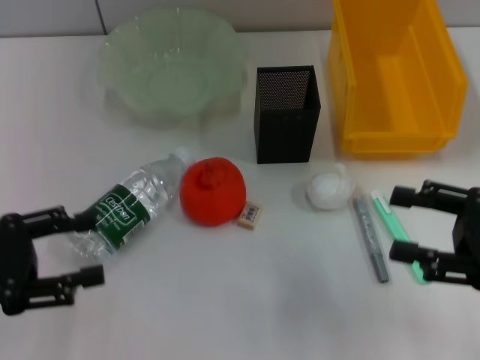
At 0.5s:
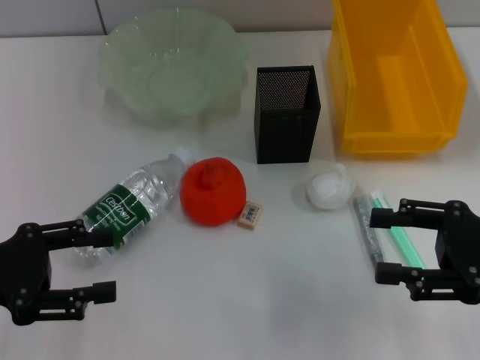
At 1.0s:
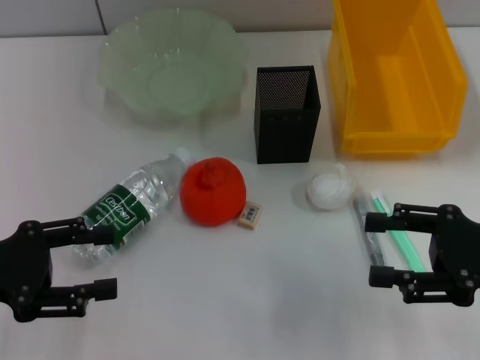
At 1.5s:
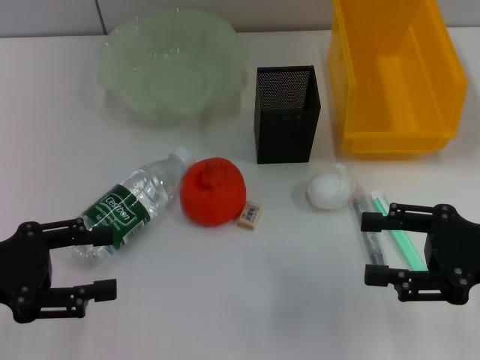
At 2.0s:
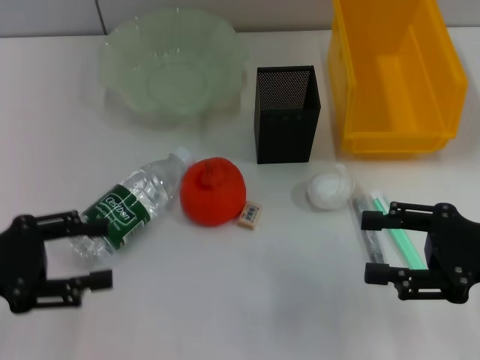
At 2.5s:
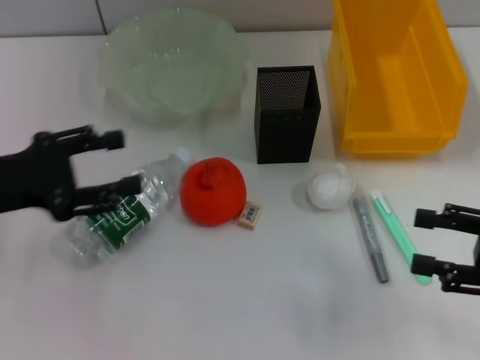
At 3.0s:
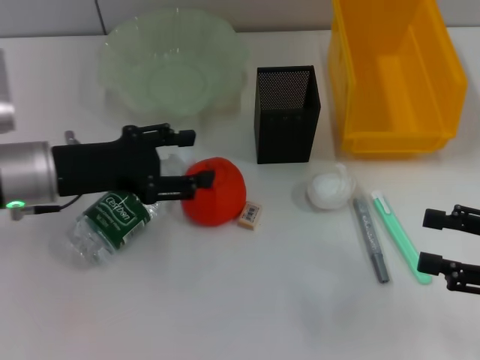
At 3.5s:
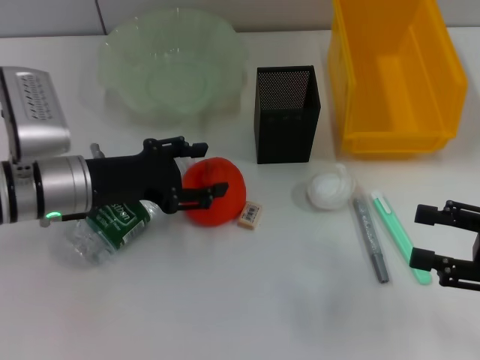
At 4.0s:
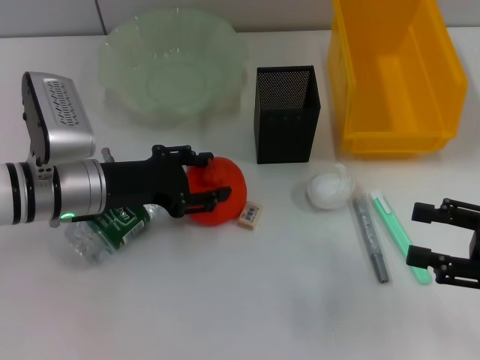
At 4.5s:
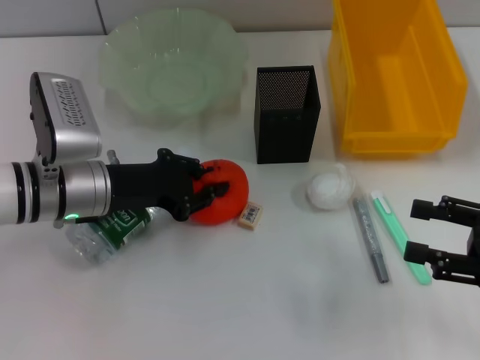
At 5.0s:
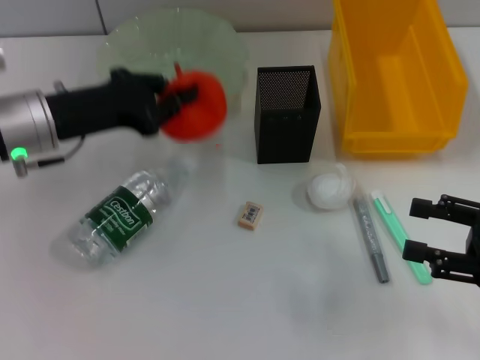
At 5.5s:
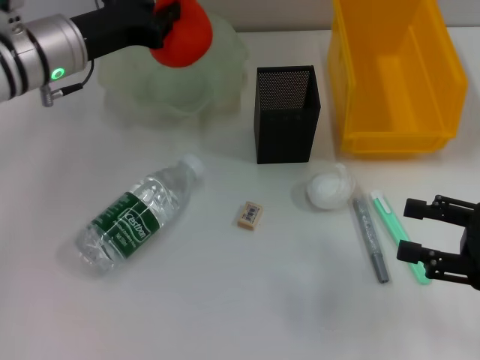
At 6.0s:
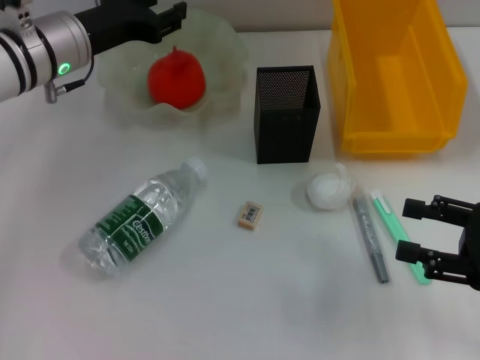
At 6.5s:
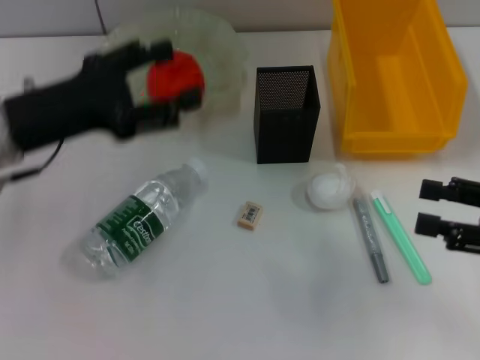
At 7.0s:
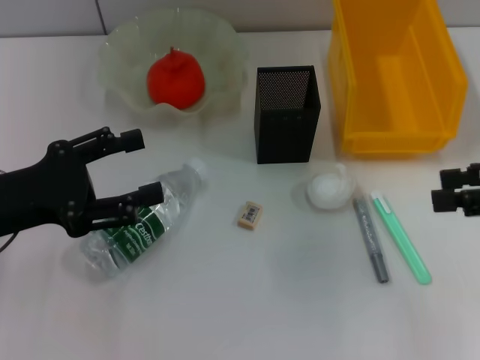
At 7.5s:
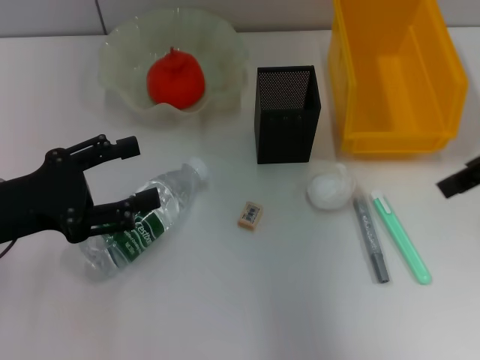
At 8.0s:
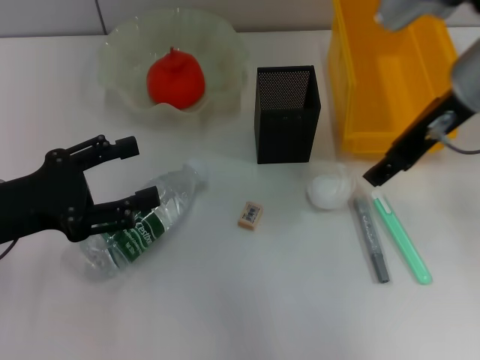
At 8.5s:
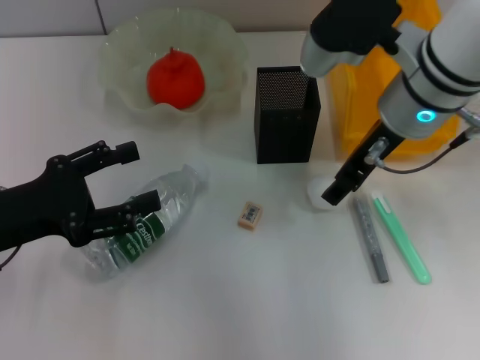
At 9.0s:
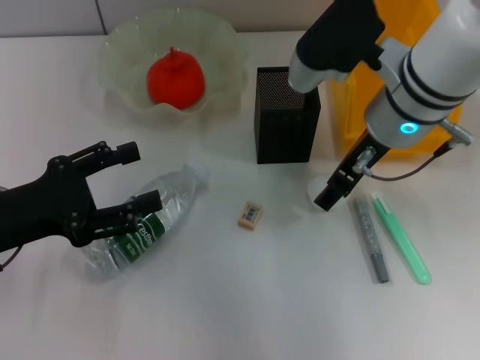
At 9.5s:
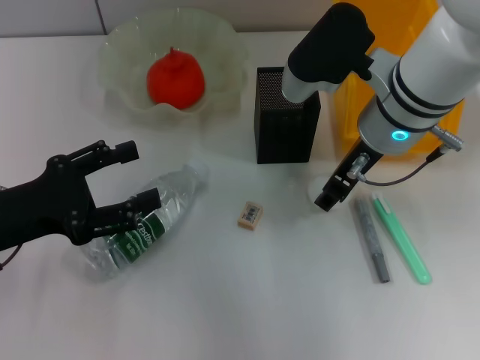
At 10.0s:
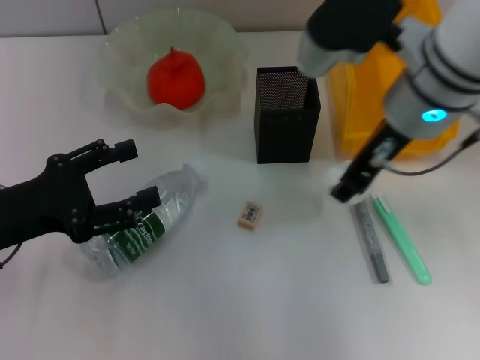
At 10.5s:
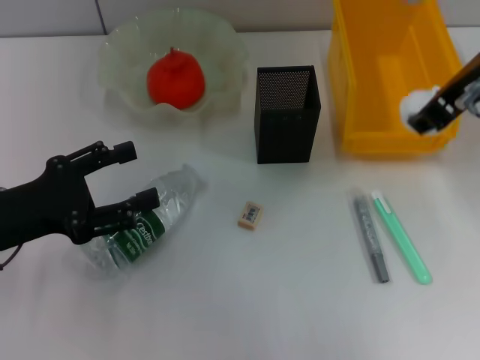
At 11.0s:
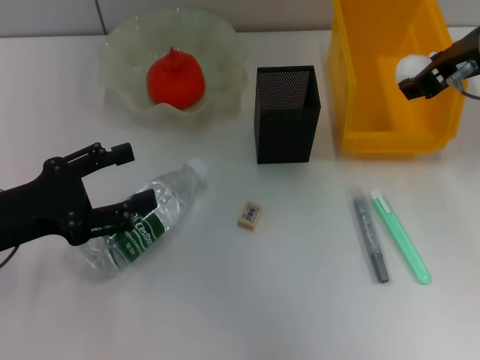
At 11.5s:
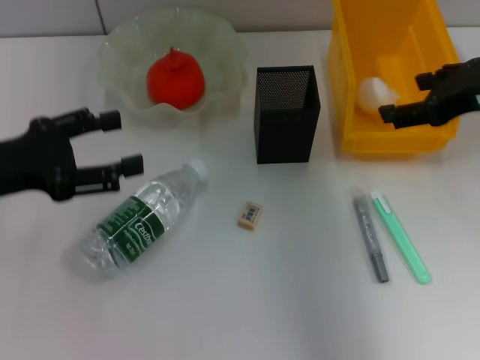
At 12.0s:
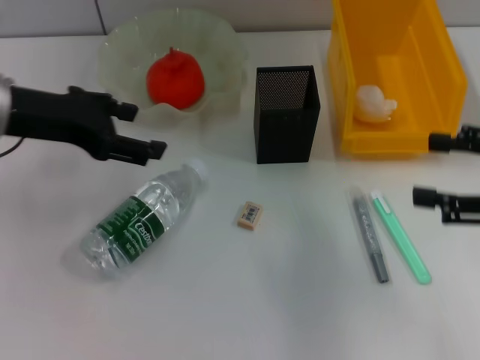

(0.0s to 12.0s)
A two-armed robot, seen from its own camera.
Step, 0.0s - 4.0s: Grab the orange with the left hand.
Step, 4.5s - 6.0s: Place the orange into the fruit bowl with the left hand.
Step, 6.5s - 9.5s: Grab the paper ball with the right hand.
Step, 10.0s - 11.0s: Place the paper ball into the trash can with the right hand.
0.0s - 2.0s: The grippers move only a little.
2.0s - 4.0s: The left gripper travels to the right and forward by some 15 cm.
4.0s - 6.0s: The left gripper travels forward and upward by about 10 cm, and closes its fingers.
6.0s - 8.0s: The left gripper travels backward and to the left by some 20 cm, and opens its fingers. Meanwhile the right gripper heads to the left, upward and forward, covering about 25 cm.
10.0s - 12.0s: The right gripper heads to the right and backward, covering approximately 20 cm, and opens up; the left gripper shifts about 15 cm upward and forward.

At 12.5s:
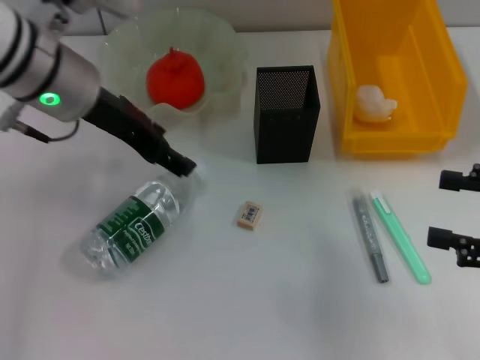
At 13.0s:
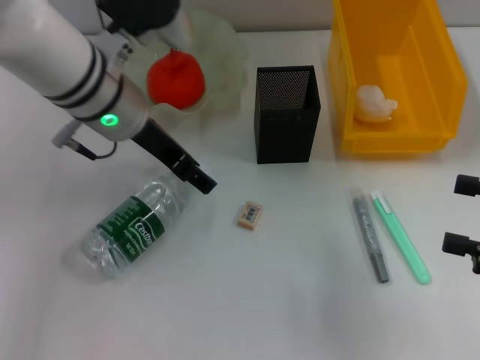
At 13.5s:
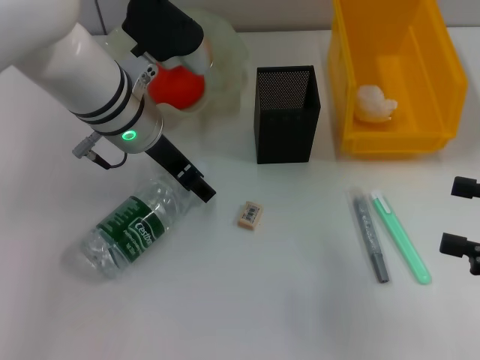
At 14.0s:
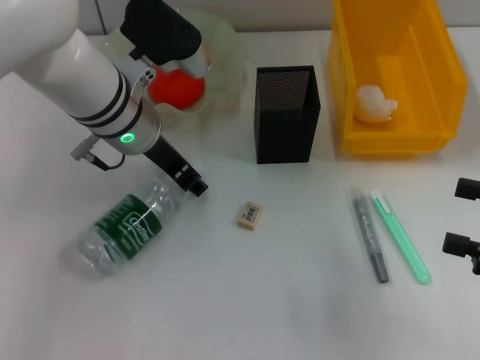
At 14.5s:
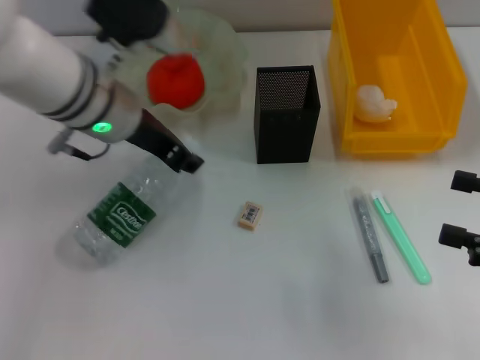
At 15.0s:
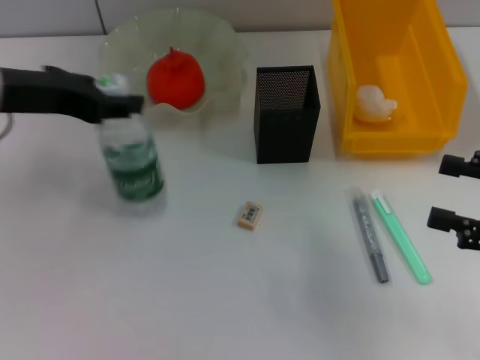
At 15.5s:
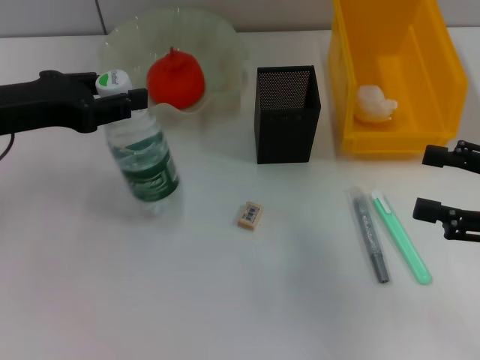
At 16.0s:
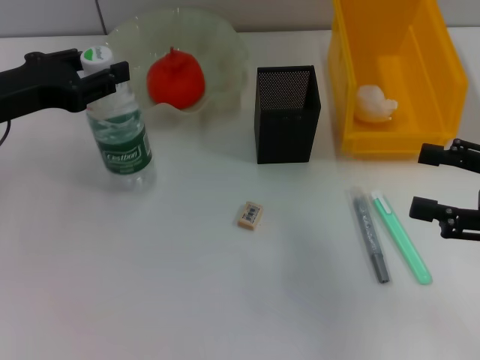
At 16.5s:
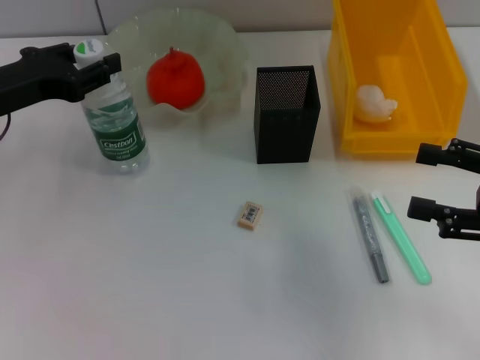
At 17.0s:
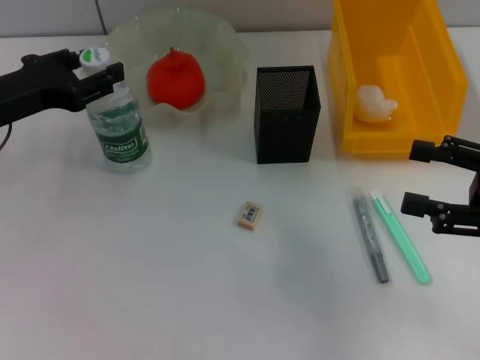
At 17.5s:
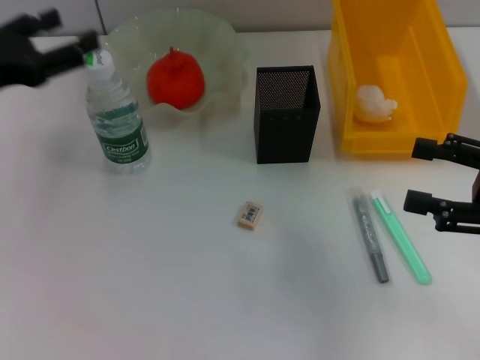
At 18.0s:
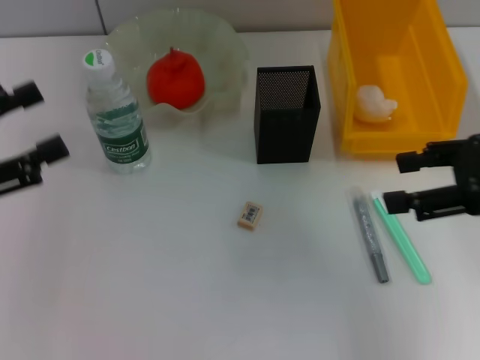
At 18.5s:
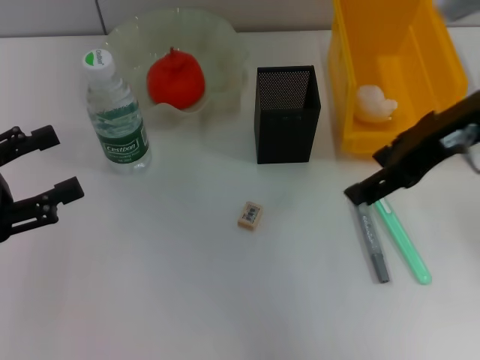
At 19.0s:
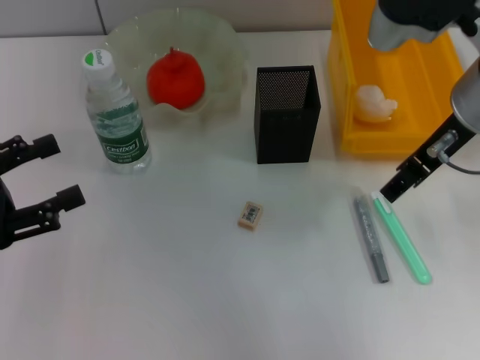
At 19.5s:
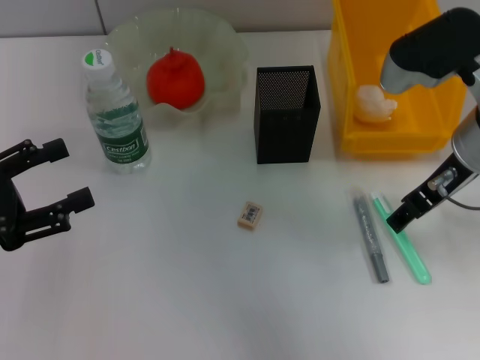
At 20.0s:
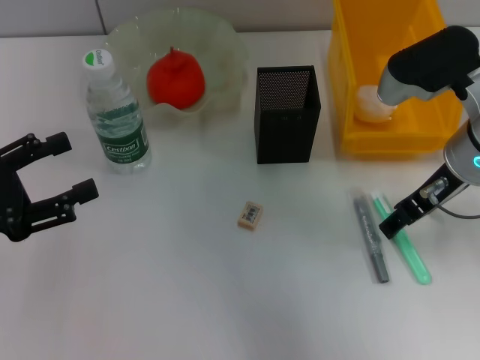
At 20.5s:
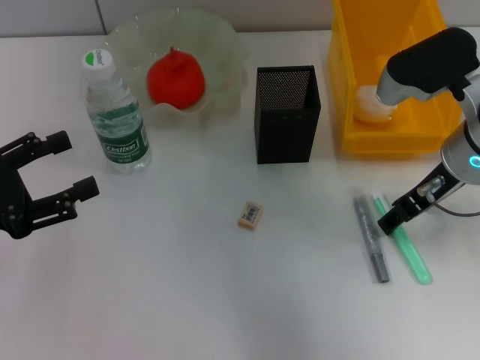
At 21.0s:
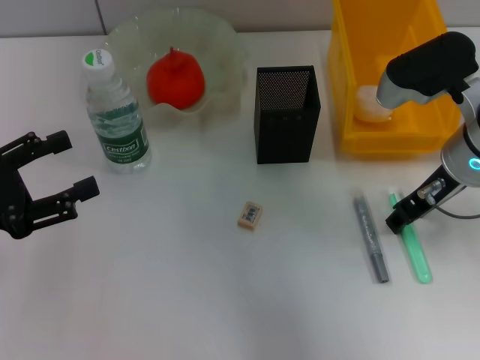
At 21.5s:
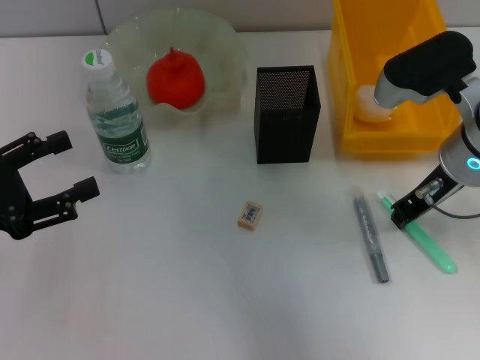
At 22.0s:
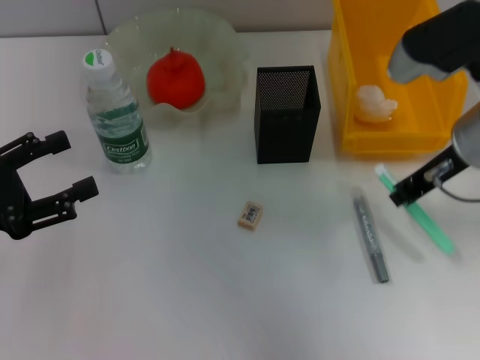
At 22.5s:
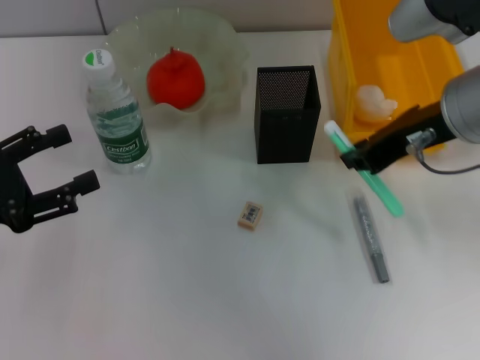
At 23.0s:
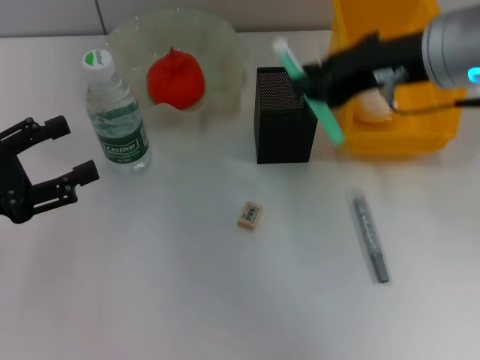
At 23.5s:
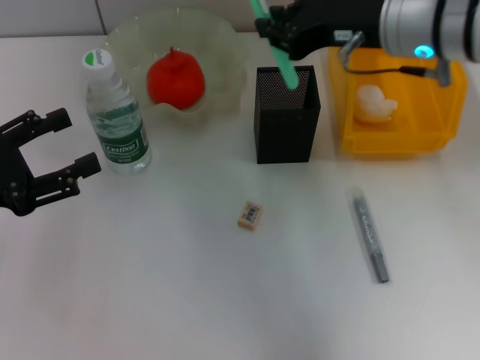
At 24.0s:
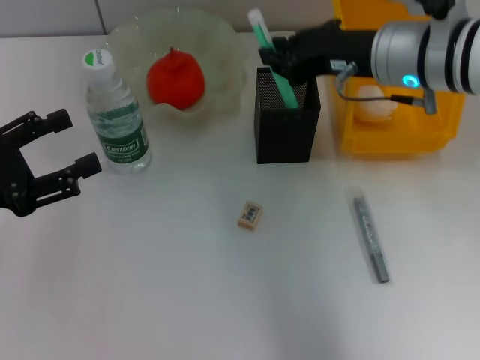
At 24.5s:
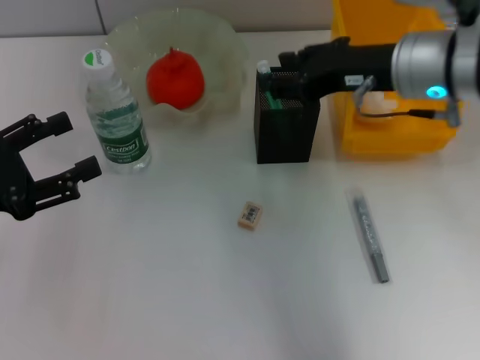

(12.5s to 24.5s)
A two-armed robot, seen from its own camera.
Step, 12.5s - 14.0s: Grab the water bottle with the left hand.
Step, 14.5s - 17.0s: Place the water bottle on the table with the left hand.
Step, 17.5s - 21.0s: Grab the blue utility knife with the right hand.
Step, 21.5s - 24.0s: Place the blue utility knife into the pen holder with the right hand.
12.5s - 14.5s: The left gripper closes its fingers.
14.5s - 16.5s: The left gripper shifts roughly 15 cm to the left.
16.5s - 18.5s: The right gripper travels to the left, upward and forward by about 20 cm, while the left gripper is displaced backward and to the left by approximately 15 cm, and opens up.
18.5s - 20.5s: The right gripper travels downward by roughly 10 cm.
20.5s - 22.5s: The right gripper goes roughly 5 cm upward, and closes its fingers.

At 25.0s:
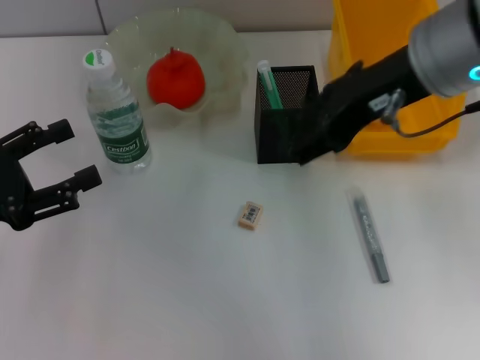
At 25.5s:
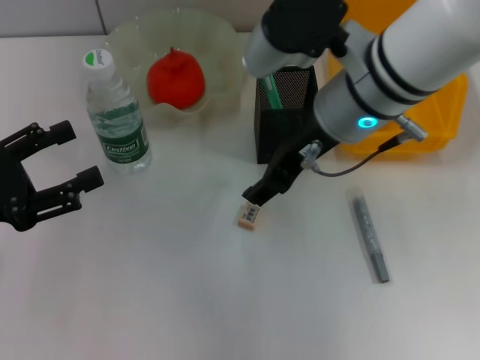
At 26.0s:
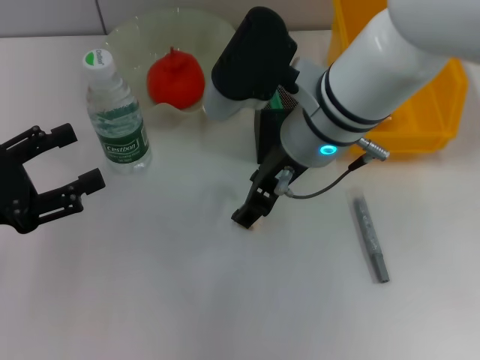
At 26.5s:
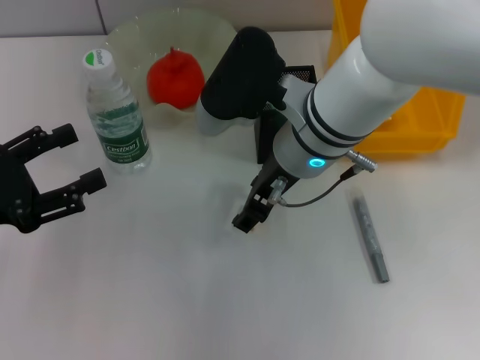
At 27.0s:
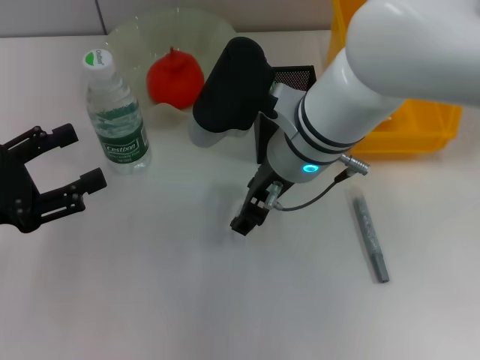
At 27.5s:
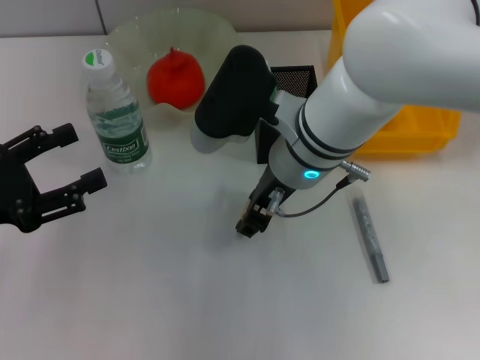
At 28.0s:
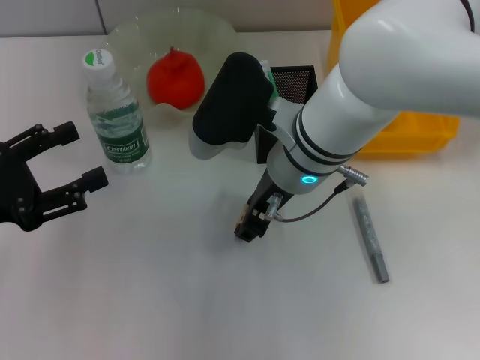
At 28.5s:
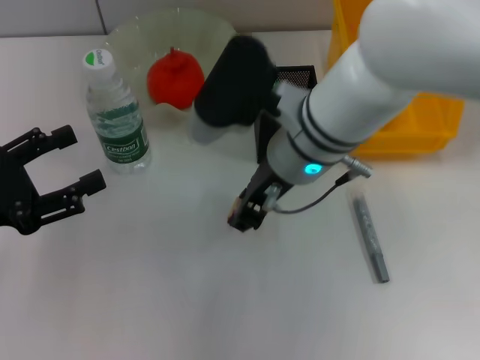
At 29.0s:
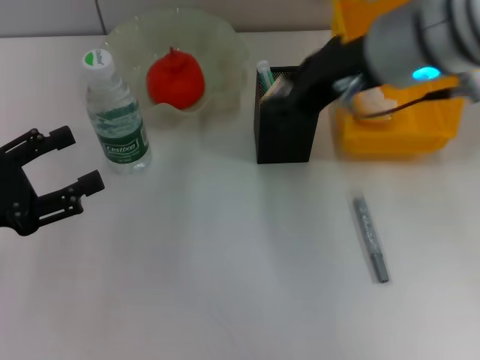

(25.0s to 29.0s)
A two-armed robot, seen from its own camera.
Step, 25.0s - 28.0s: Grab the eraser with the right hand.
25.0s - 27.0s: The right gripper goes some 15 cm downward and to the left.
27.0s - 29.0s: The right gripper moves upward and to the right, roughly 15 cm, and closes.
